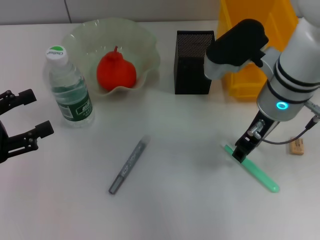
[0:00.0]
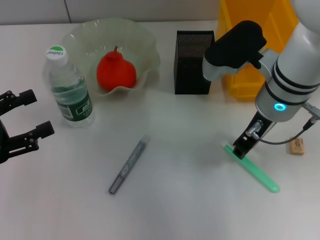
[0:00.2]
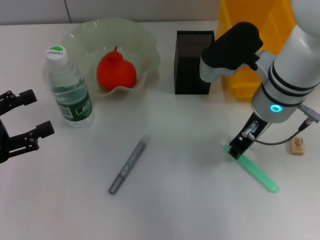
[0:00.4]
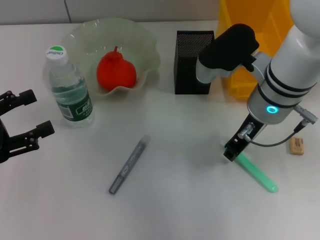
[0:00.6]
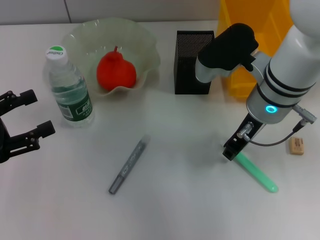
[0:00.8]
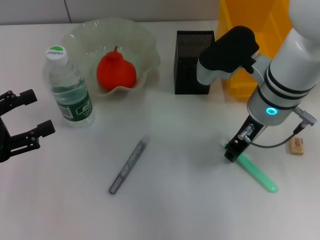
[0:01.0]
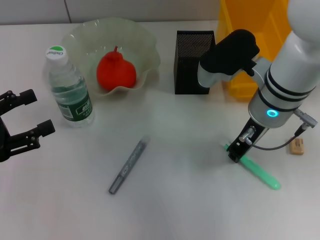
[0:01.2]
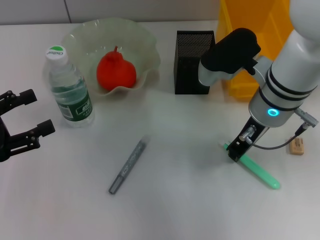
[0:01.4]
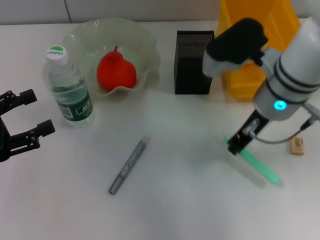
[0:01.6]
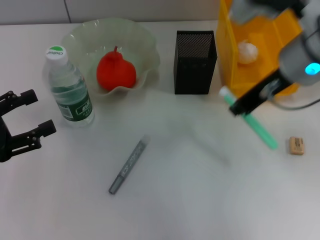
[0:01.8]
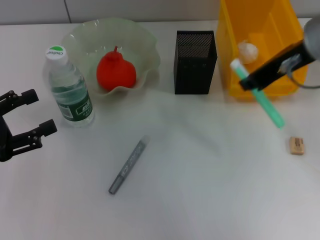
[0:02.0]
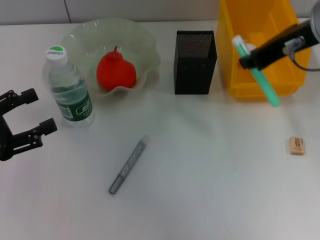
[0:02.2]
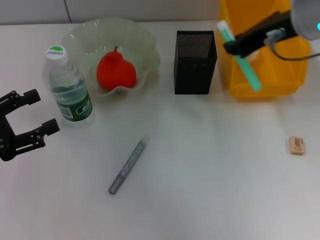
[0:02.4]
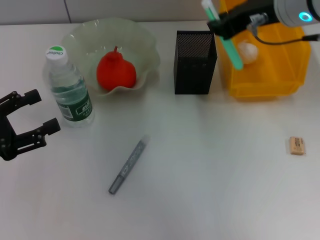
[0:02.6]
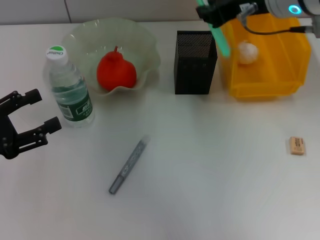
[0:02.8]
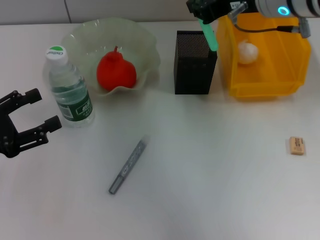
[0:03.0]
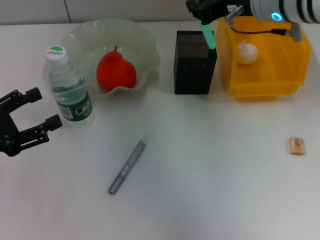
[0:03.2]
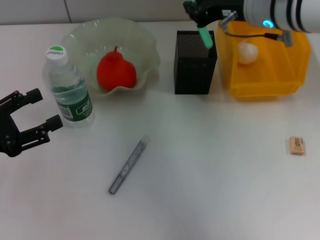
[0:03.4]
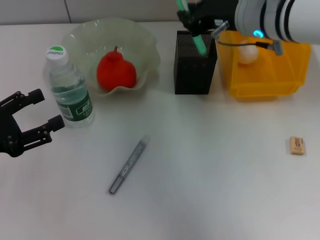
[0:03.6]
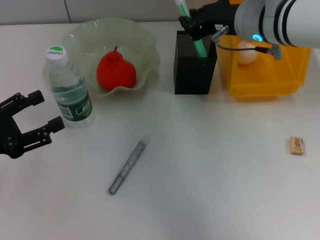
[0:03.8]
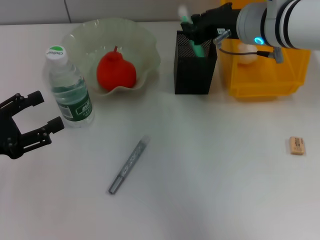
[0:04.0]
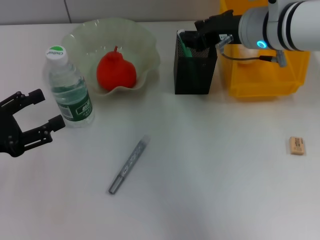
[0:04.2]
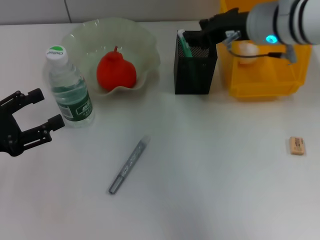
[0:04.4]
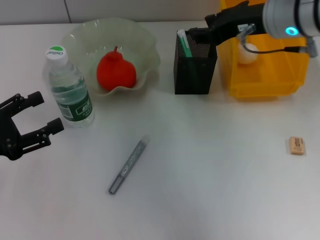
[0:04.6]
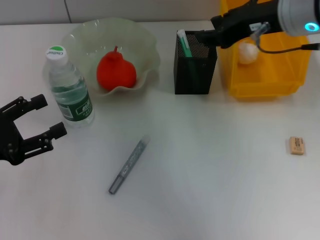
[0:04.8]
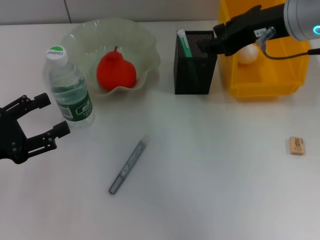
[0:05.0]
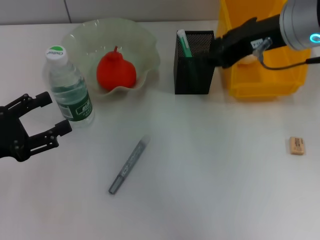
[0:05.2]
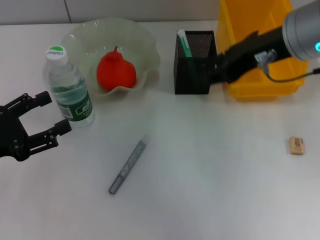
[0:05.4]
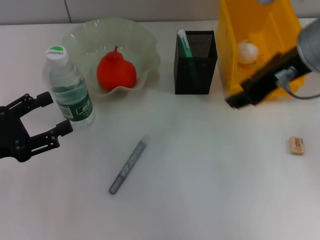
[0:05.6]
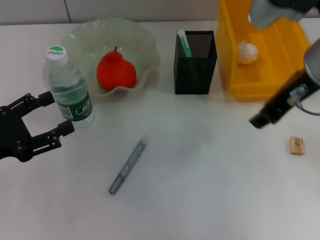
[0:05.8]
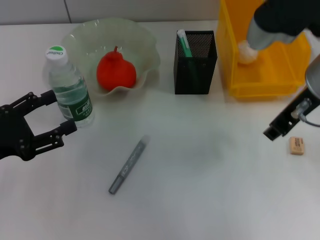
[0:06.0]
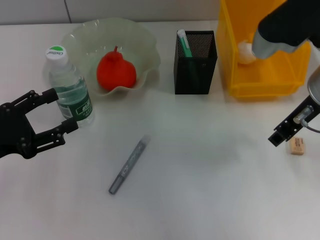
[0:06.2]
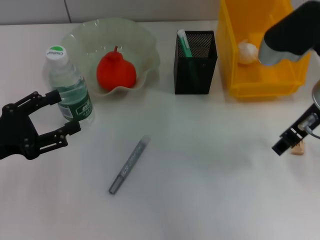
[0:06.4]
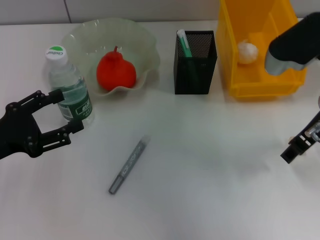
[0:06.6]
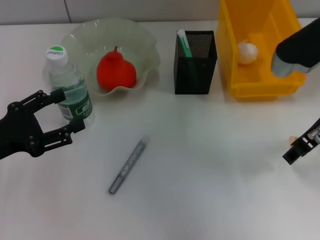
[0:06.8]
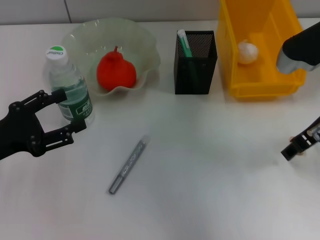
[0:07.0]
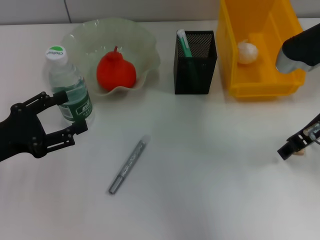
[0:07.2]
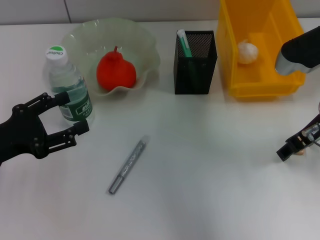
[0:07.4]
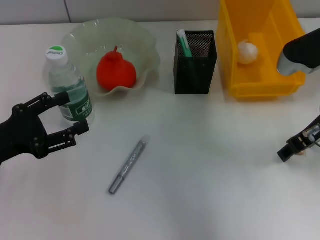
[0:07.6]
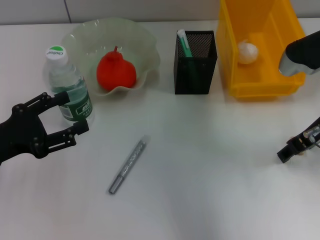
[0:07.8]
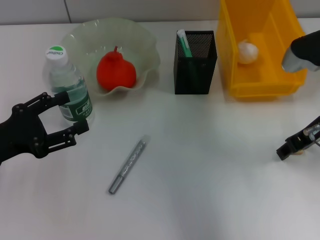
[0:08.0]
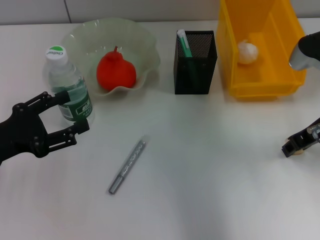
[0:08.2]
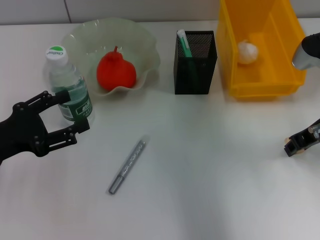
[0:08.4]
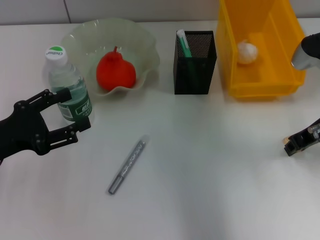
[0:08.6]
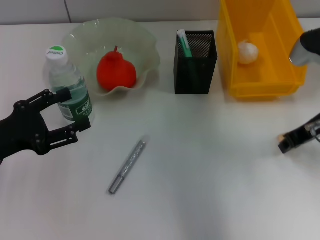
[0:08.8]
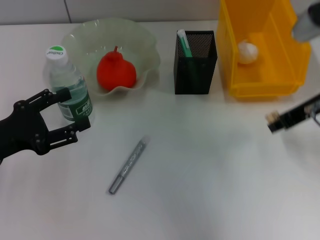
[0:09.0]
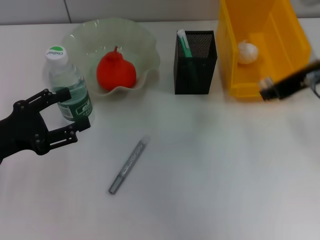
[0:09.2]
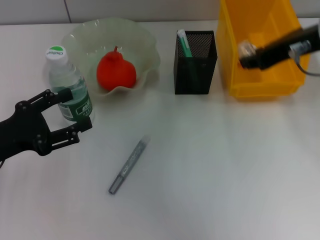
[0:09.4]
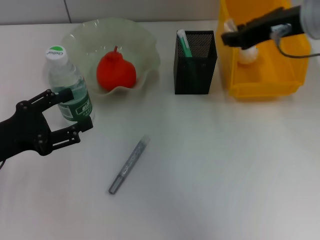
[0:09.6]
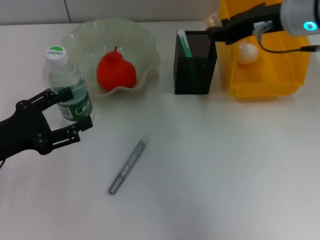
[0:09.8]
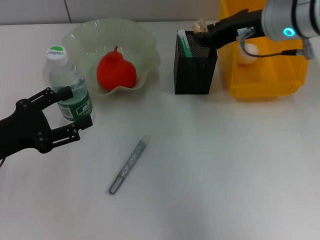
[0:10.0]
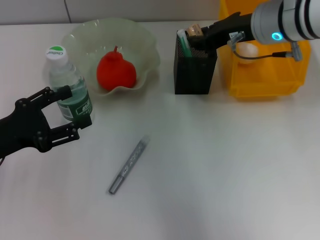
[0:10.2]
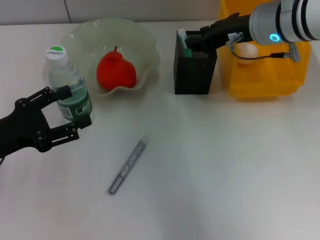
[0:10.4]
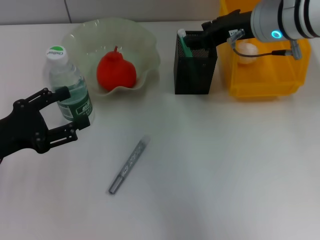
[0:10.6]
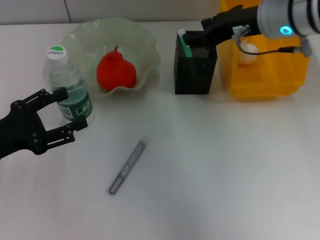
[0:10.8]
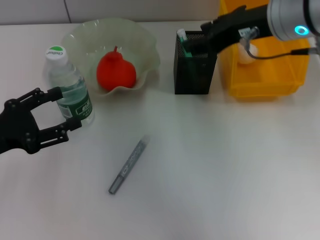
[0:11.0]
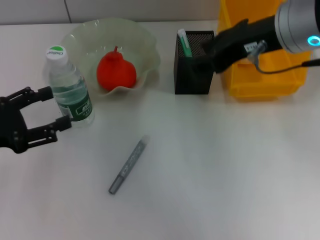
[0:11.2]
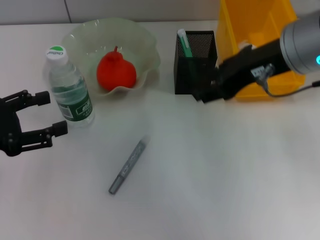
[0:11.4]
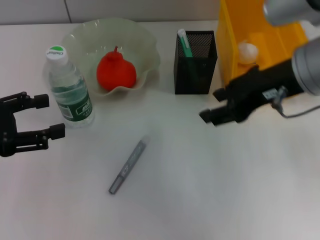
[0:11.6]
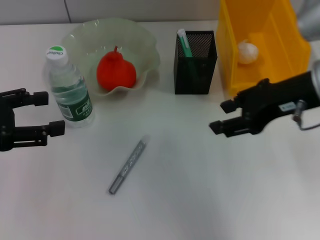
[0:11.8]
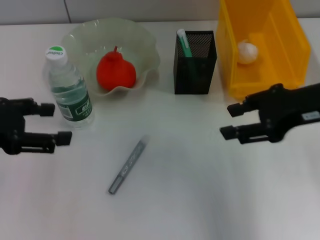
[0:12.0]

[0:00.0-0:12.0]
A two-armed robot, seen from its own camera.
Step, 0:01.8 to 0:04.6: Place the blue utility knife into the pen holder with the right hand.
Step, 0:04.8 to 0:08.6: Grab the eraser with the right hand.
Step, 0:08.8 to 0:10.6: Put the eraser into the pen holder with the right hand.
0:00.0 to 0:01.6: The right gripper closes.
0:01.6 to 0:03.0: The right gripper goes roughly 5 cm upward.
0:03.0 to 0:04.4: The right gripper opens its fingers.
0:04.4 to 0:06.0: The right gripper moves backward, some 5 cm.
0:06.0 to 0:07.6: The right gripper is displaced downward and to the right by about 10 cm, and opens.
0:07.6 to 0:09.0: The right gripper closes.
0:09.0 to 0:10.4: The right gripper is displaced forward and to the left by roughly 10 cm.
0:10.4 to 0:12.0: The right gripper is displaced backward and to the right by roughly 15 cm. Meanwhile the left gripper shifts roughly 10 cm upward.

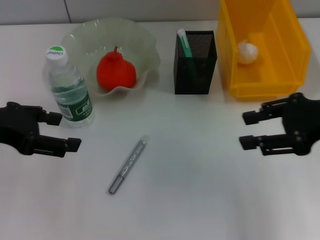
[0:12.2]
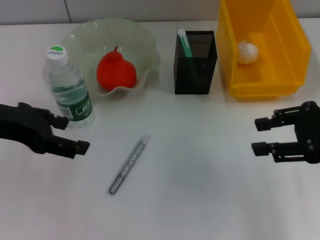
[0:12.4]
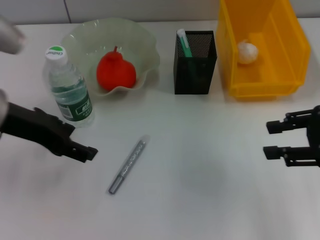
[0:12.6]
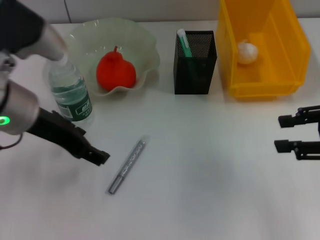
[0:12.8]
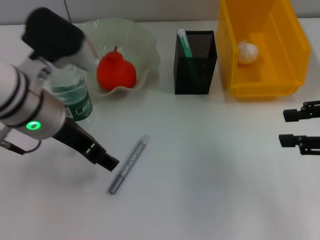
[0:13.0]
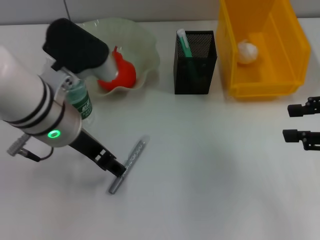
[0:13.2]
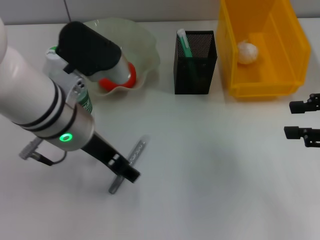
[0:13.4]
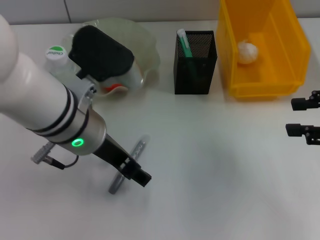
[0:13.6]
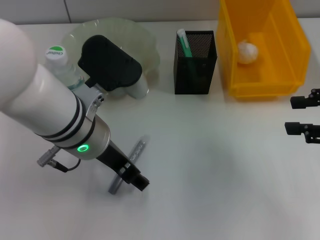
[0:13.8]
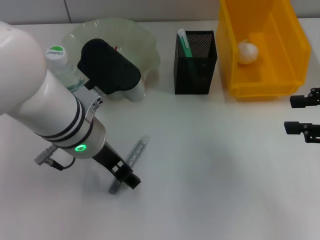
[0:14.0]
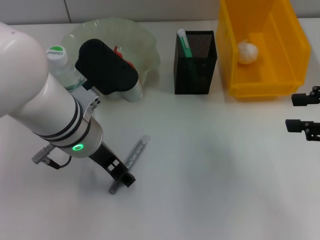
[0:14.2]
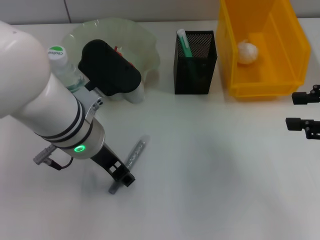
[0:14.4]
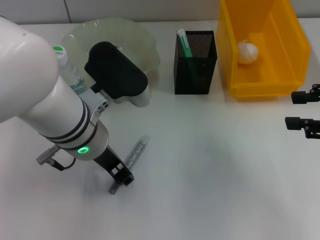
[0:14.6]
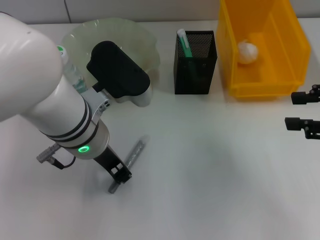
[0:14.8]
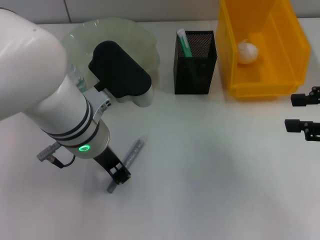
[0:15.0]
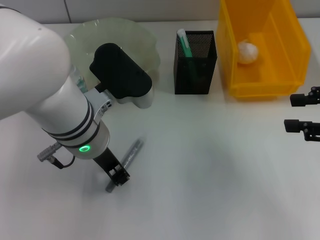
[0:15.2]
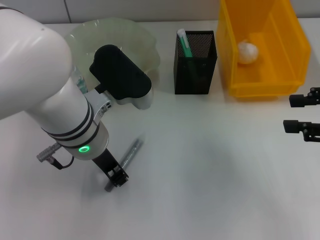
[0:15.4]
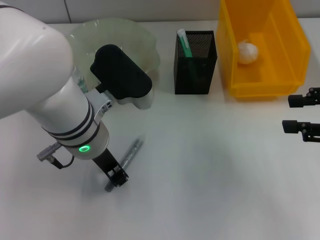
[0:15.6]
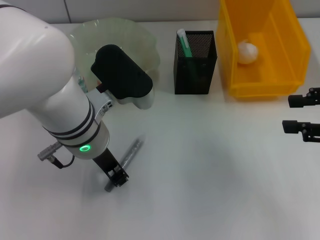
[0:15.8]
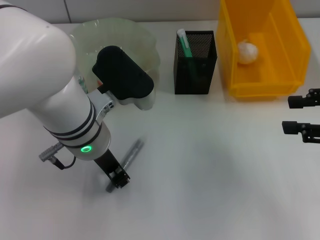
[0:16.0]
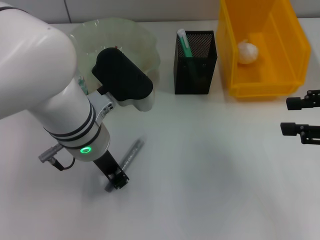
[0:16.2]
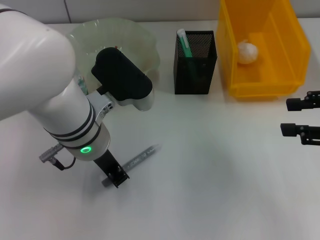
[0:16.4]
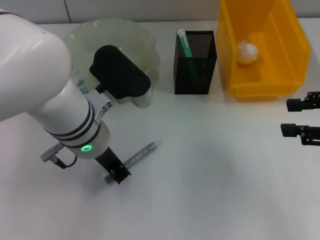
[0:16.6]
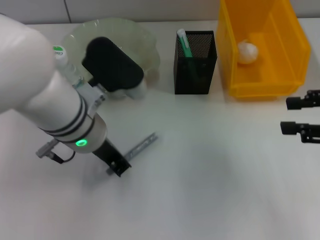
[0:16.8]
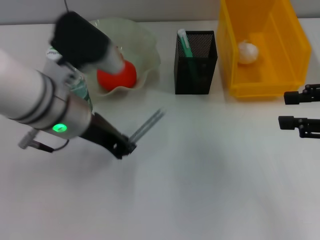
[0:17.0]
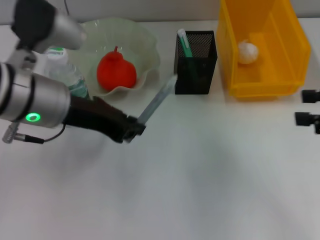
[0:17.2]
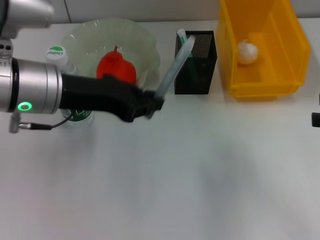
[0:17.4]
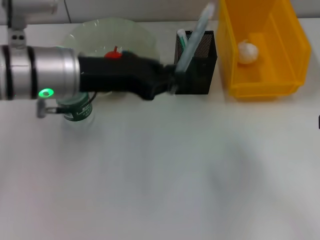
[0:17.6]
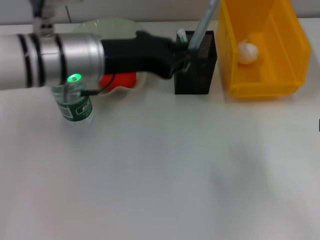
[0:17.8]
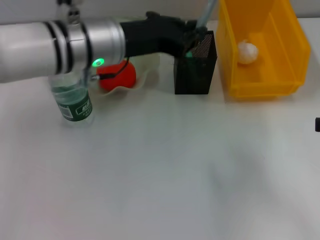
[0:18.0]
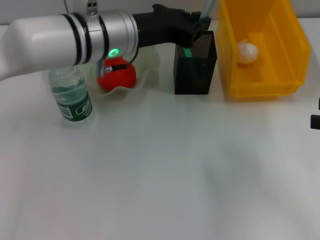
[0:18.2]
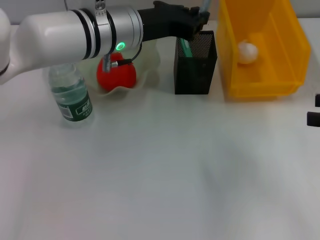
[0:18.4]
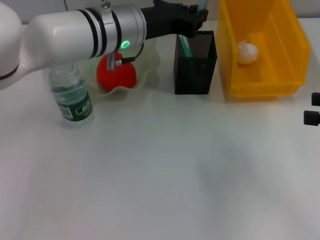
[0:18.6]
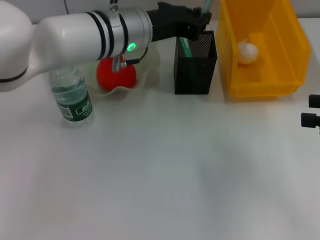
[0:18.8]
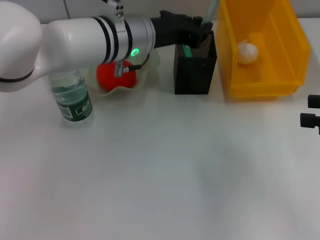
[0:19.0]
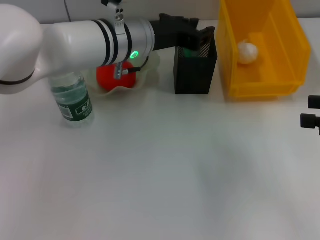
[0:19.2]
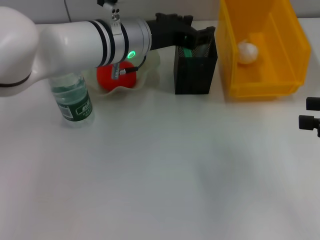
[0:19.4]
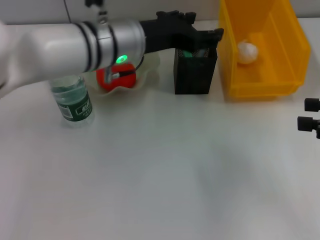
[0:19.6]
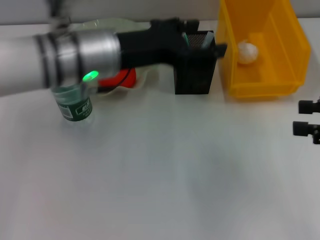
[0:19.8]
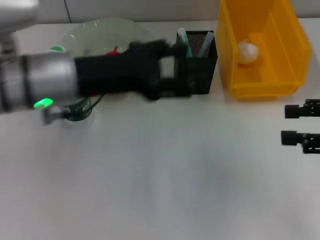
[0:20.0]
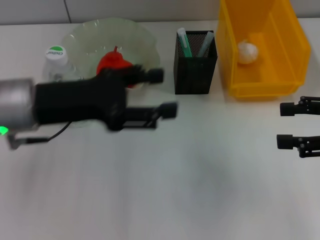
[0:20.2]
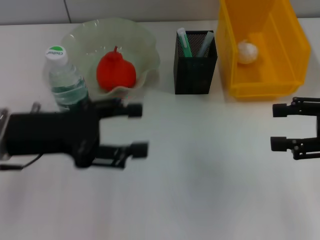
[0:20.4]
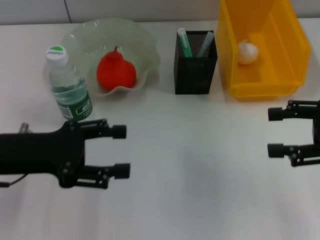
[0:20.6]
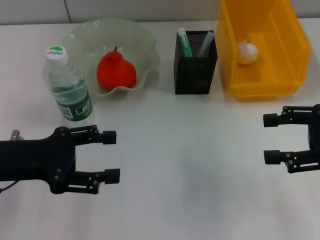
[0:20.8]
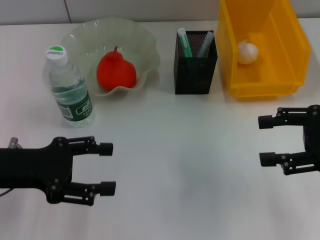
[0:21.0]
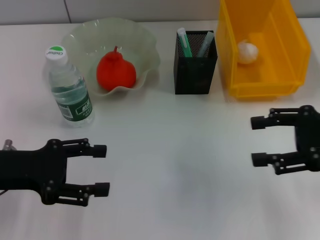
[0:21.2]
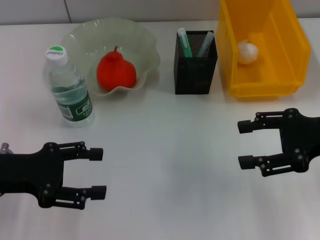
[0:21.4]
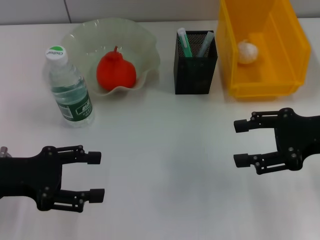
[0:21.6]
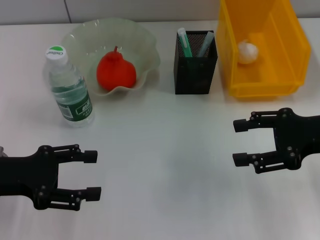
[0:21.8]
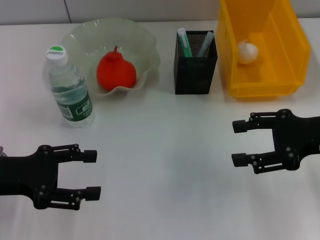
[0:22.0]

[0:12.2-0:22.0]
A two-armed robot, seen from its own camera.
Step, 0:12.2 to 0:16.6: Grab the gray glue with the right hand.
Step, 0:16.8 to 0:19.6: Place the gray glue into the pen holder with the right hand.
0:12.2 to 0:13.6: The right gripper shifts roughly 5 cm to the right. Meanwhile the left gripper travels to the right by some 15 cm.
0:13.6 to 0:15.0: The left gripper closes.
0:15.0 to 0:16.4: Both grippers stay put.
0:16.4 to 0:17.8: The right gripper ends up some 5 cm from where it was. Meanwhile the left gripper moves about 5 cm.
0:17.8 to 0:19.2: The left gripper travels to the right and forward by roughly 10 cm.
0:19.2 to 0:20.6: The left gripper moves to the left and backward, some 25 cm, and opens up.
0:20.6 to 0:22.0: The grippers make only small movements.
